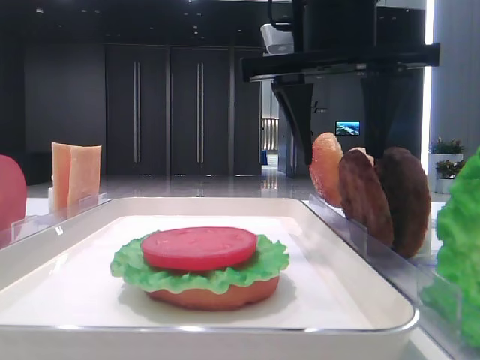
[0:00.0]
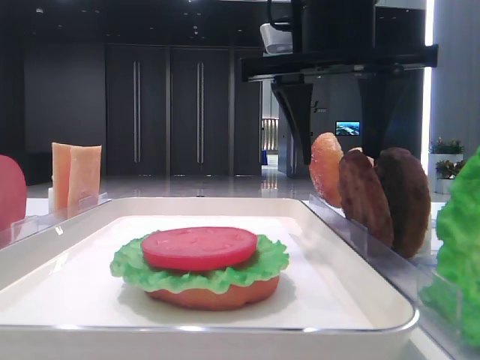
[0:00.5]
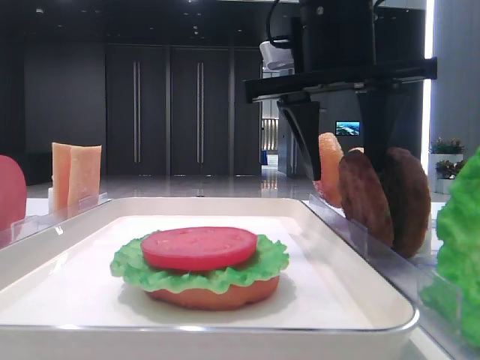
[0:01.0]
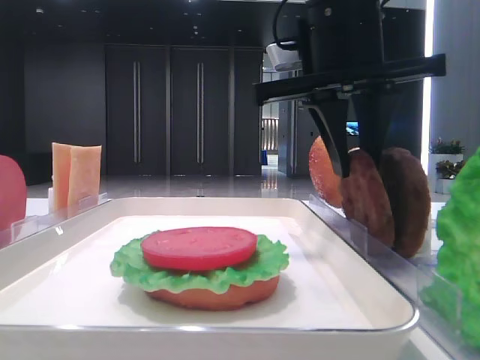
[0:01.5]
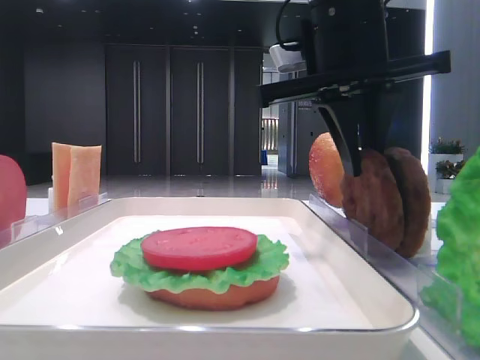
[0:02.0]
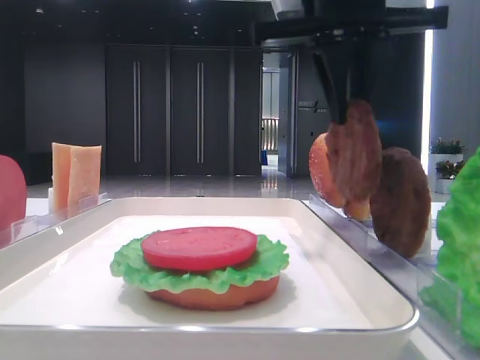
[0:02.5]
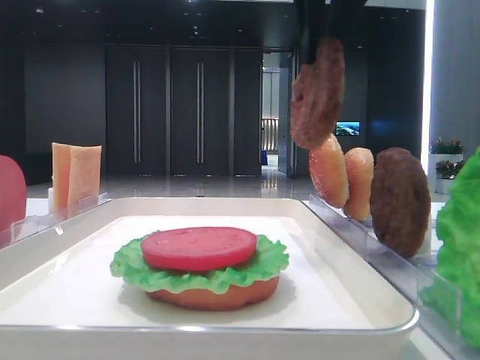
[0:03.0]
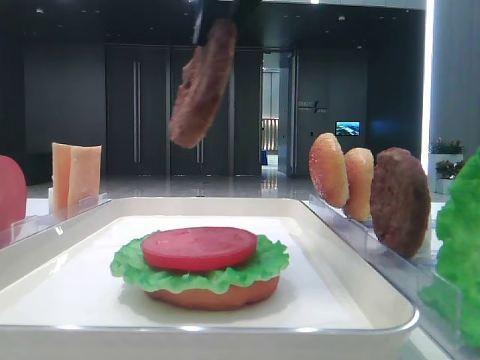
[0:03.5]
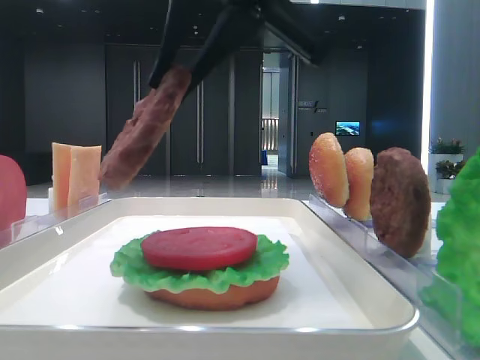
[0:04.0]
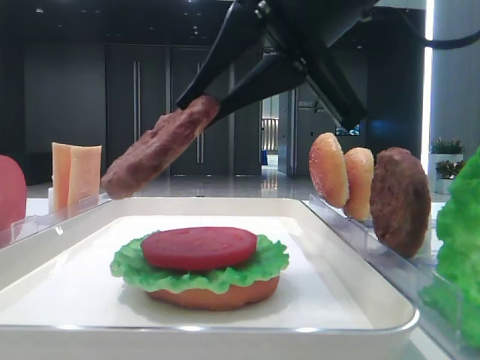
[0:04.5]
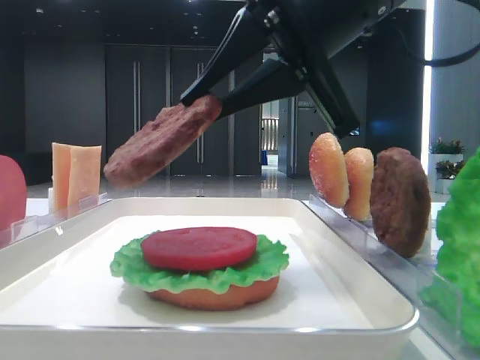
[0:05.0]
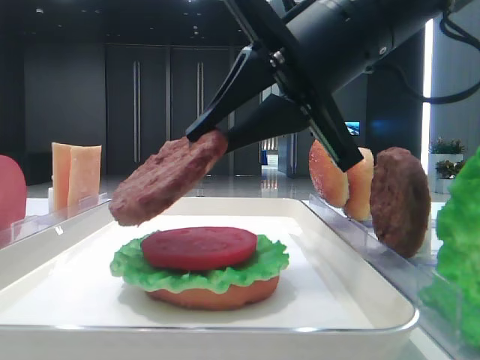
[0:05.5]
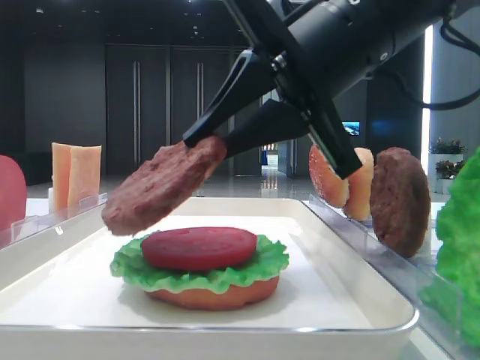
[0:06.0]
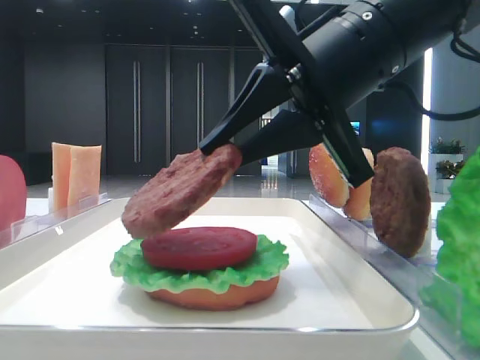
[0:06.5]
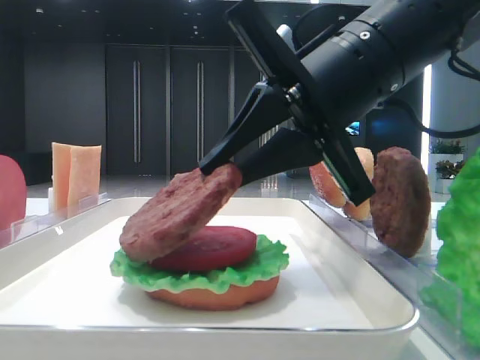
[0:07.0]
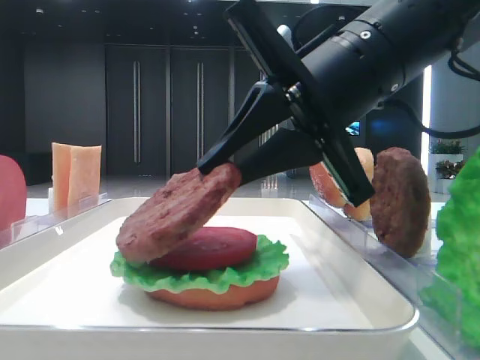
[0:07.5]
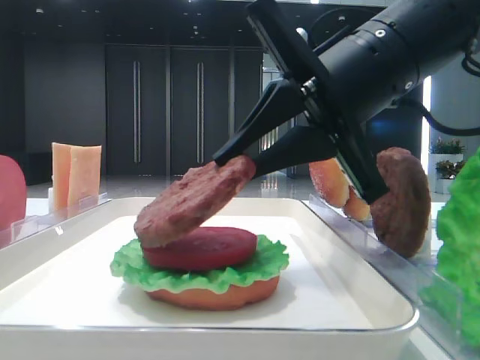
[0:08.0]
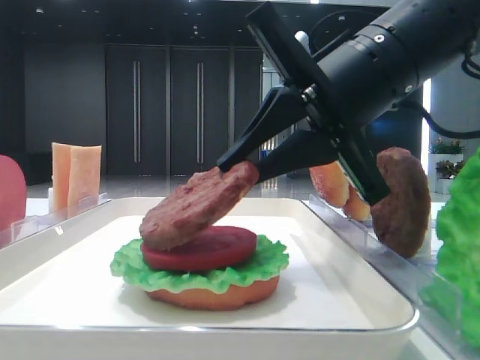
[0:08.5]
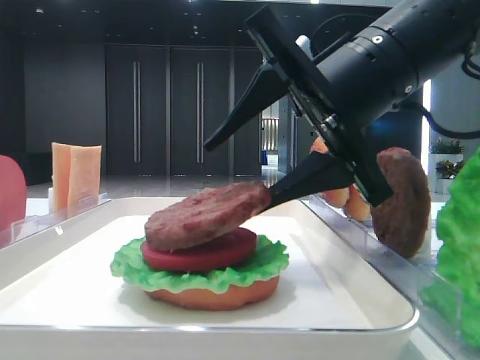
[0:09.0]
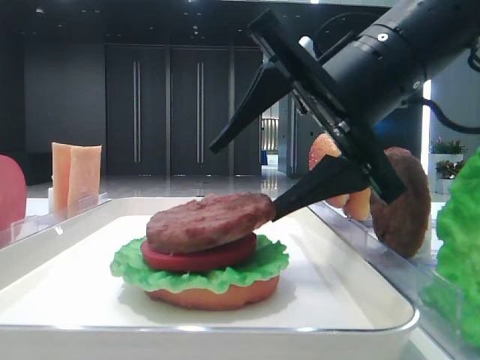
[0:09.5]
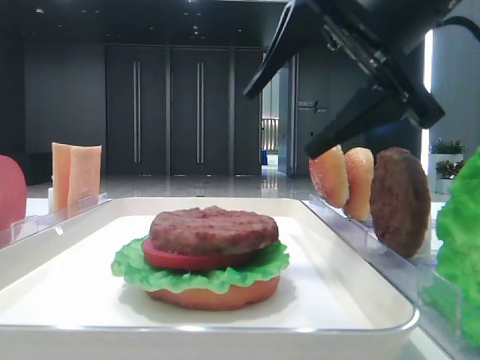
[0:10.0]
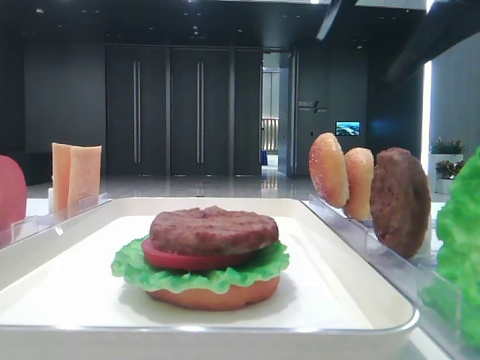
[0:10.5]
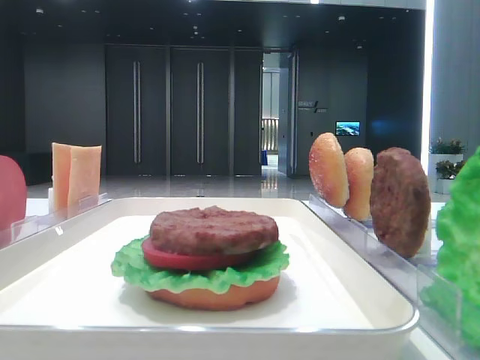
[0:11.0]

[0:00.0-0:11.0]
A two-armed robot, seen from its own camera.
Step, 0:02.0 to 0:09.5: Place the patty on the tomato slice with the right hand.
0:00.0 to 0:02.0: The right gripper closes its fingers.
0:02.0 to 0:03.5: The right gripper shifts approximately 15 cm upward, backward and to the left.
0:03.5 to 0:05.5: The right gripper shifts approximately 15 cm downward and to the right.
0:05.5 to 0:07.5: The grippers make only small movements.
0:07.5 to 0:09.0: The right gripper opens its fingers.
0:09.0 to 0:11.0: The right gripper travels upward and to the right by about 20 cm.

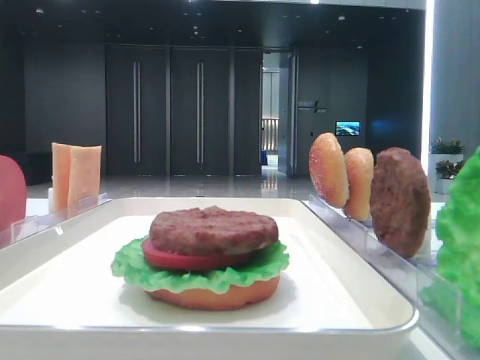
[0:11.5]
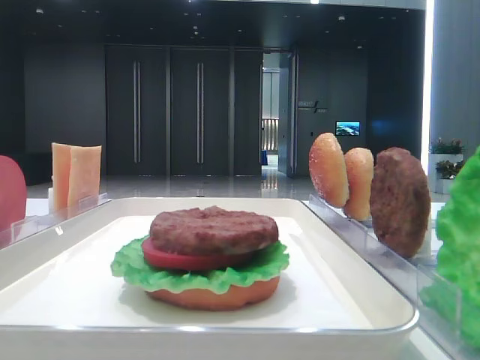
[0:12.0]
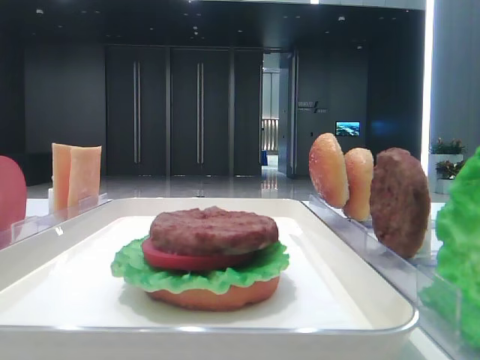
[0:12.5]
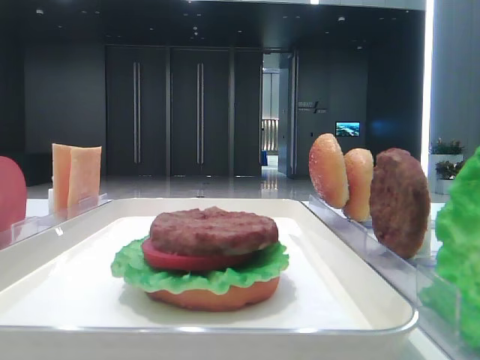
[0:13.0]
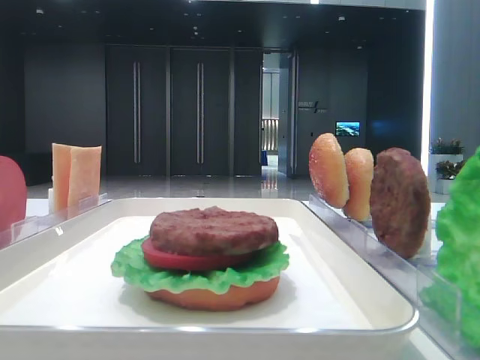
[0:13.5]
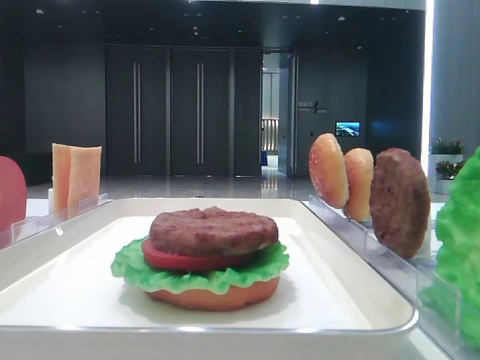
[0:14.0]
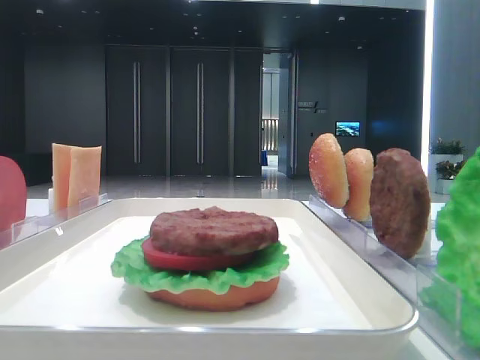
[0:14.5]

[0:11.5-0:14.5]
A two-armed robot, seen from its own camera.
0:11.5 to 0:13.0: The right gripper moves backward, roughly 25 cm.
0:13.0 to 0:14.5: Both grippers stay about where they are.

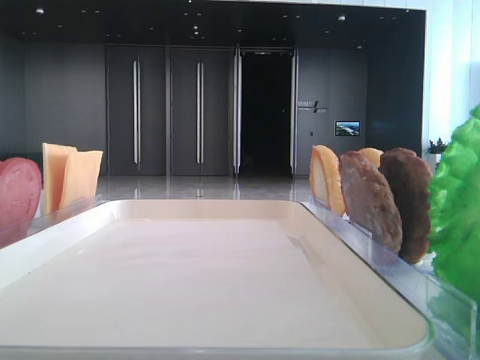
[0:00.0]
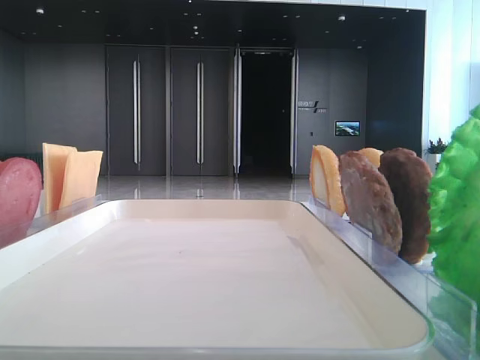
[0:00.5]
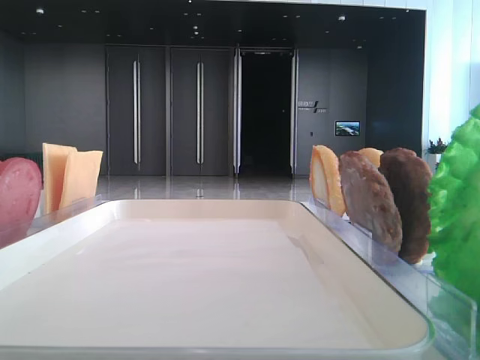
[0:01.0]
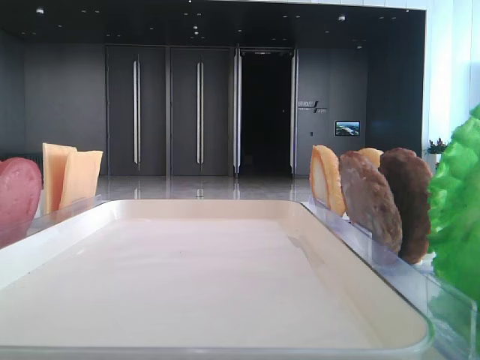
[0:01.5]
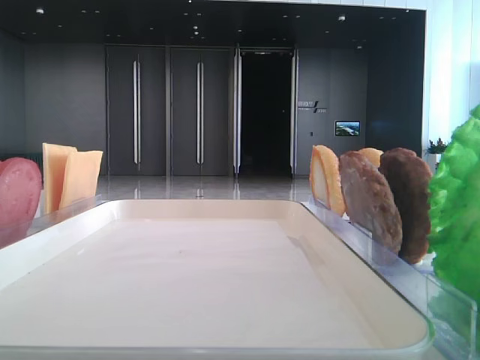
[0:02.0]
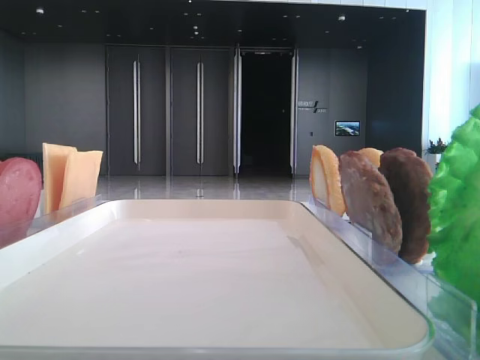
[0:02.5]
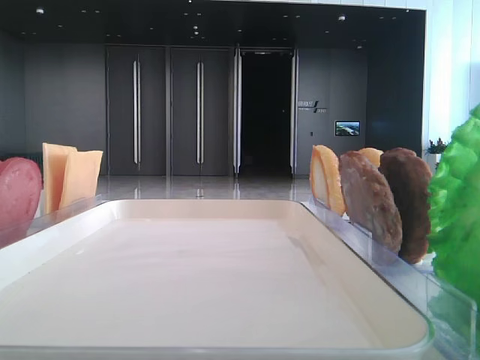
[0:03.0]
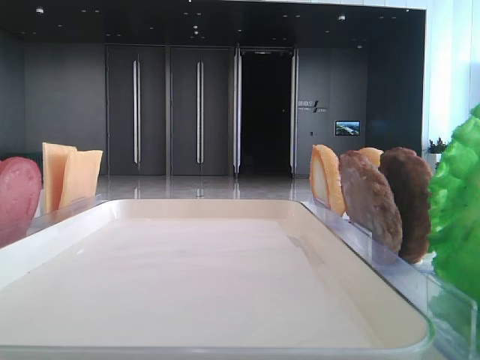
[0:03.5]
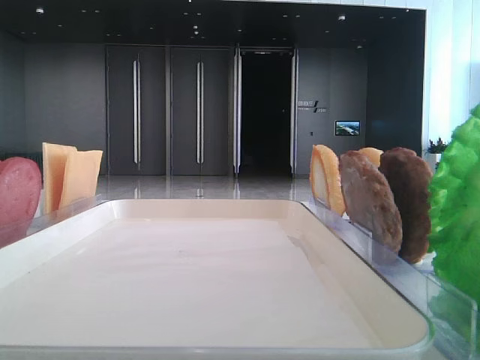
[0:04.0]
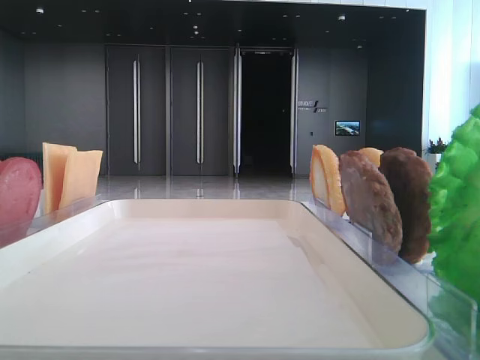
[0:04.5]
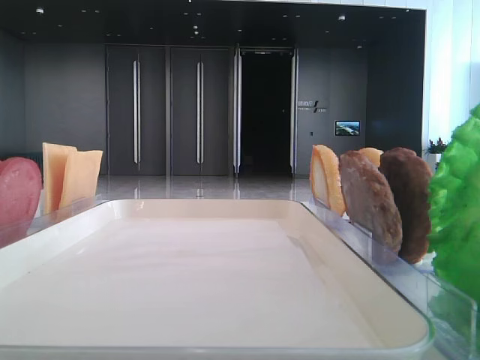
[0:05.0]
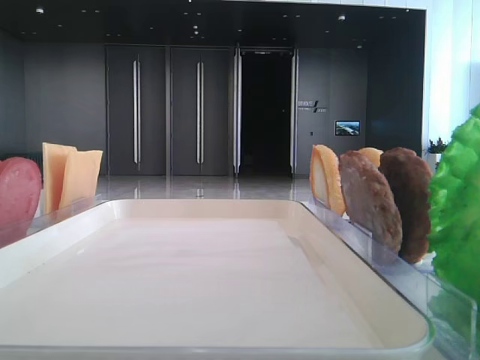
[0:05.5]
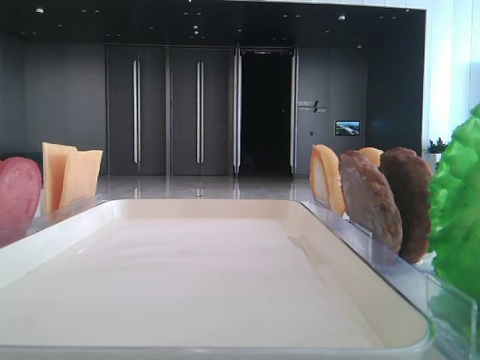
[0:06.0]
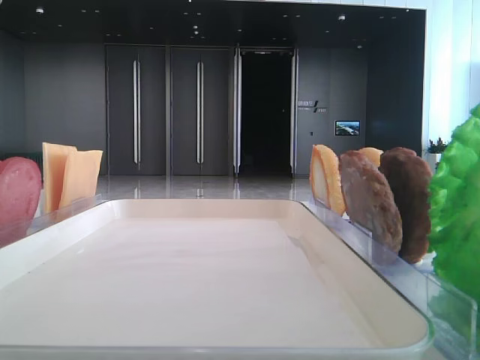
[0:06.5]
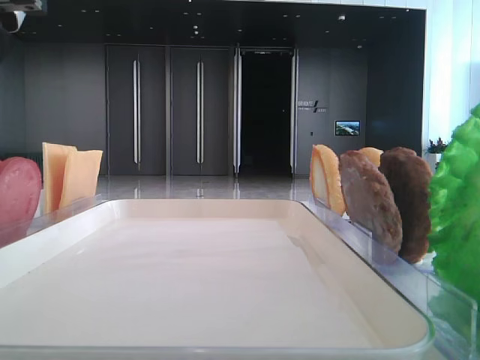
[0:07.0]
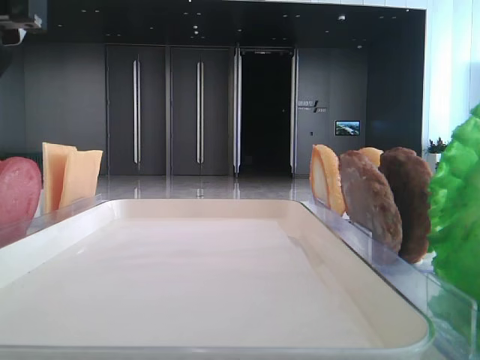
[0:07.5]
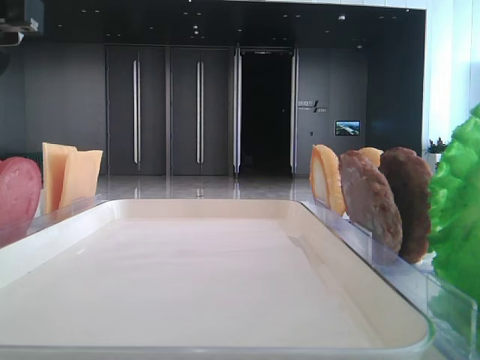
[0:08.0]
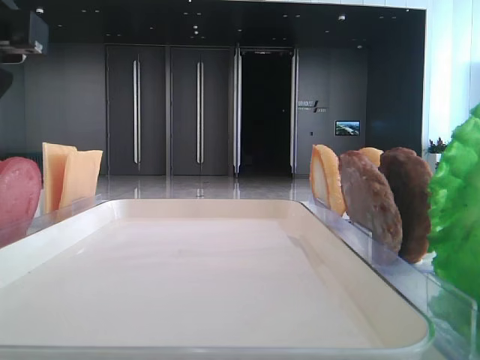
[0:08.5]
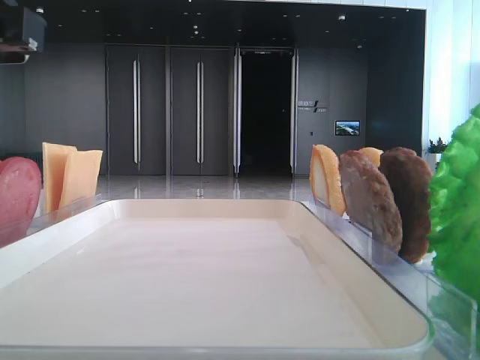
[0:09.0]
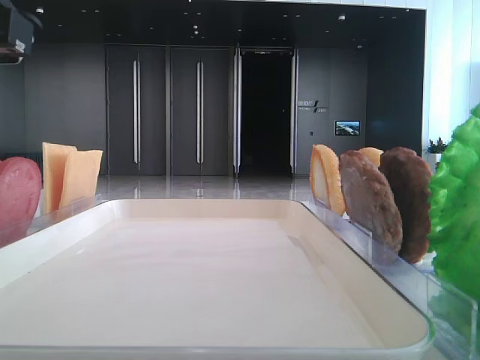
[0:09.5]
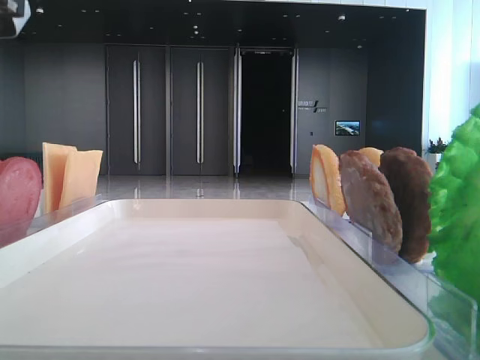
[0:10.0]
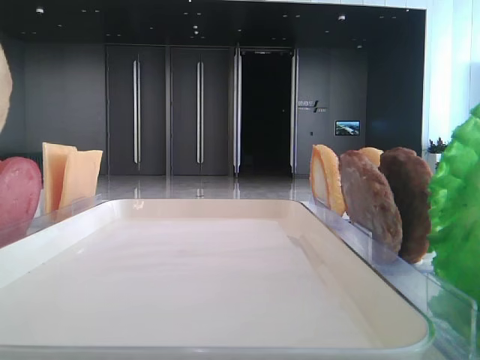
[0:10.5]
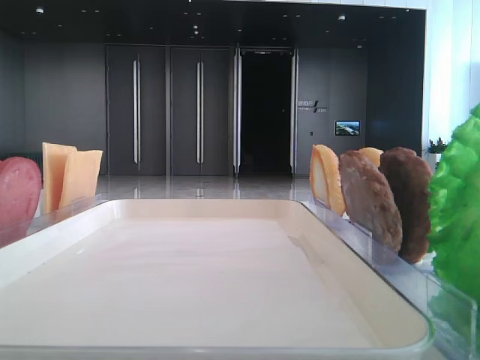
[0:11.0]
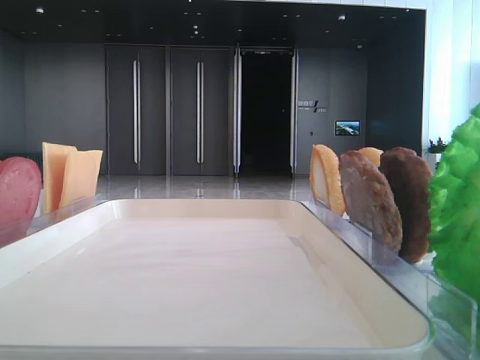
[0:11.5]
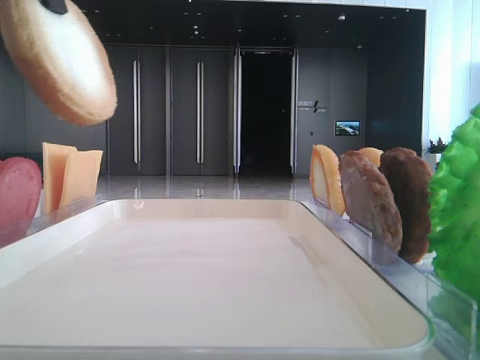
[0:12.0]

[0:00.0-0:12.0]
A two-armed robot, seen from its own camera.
0:08.0 to 0:10.0: The left gripper closes its fingers.
0:10.0 to 0:12.0: The left gripper travels upward by some 5 cm.
